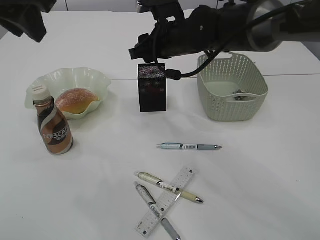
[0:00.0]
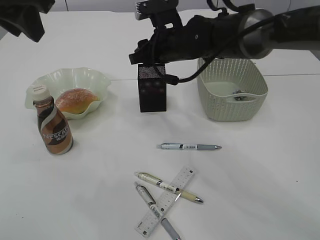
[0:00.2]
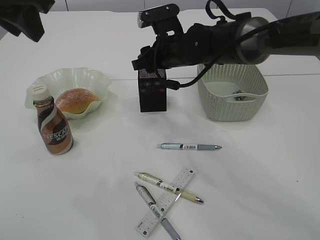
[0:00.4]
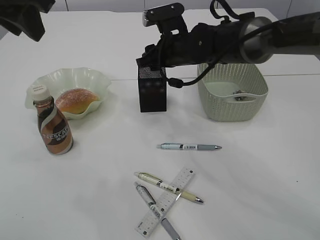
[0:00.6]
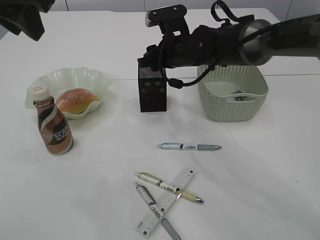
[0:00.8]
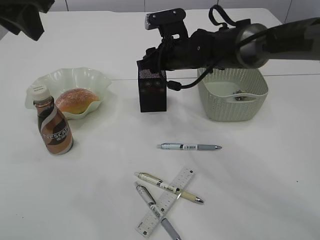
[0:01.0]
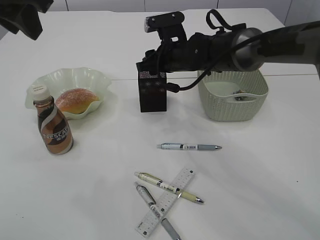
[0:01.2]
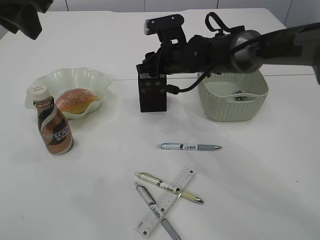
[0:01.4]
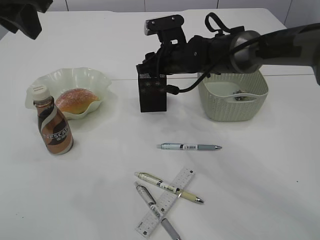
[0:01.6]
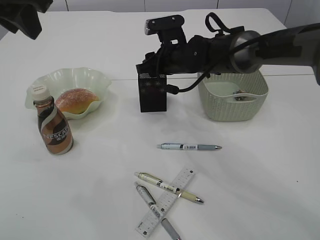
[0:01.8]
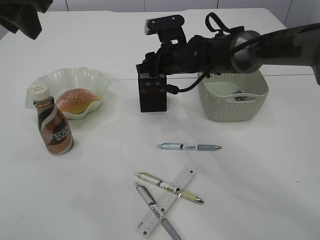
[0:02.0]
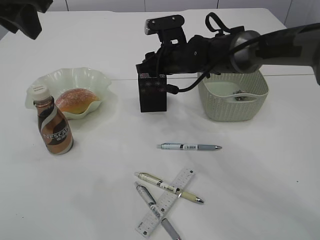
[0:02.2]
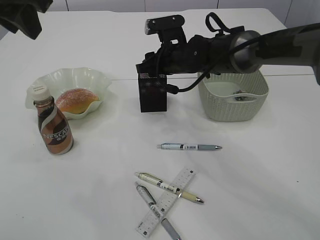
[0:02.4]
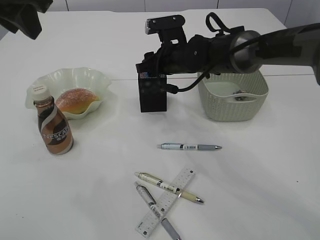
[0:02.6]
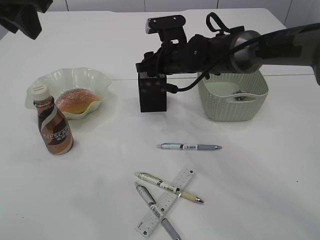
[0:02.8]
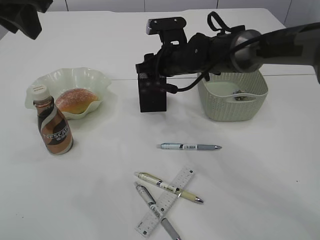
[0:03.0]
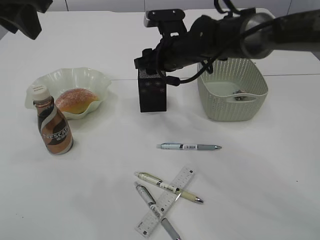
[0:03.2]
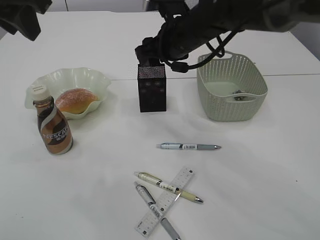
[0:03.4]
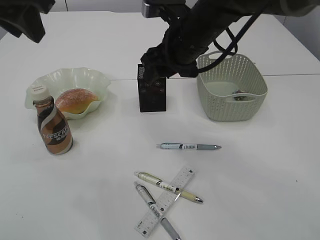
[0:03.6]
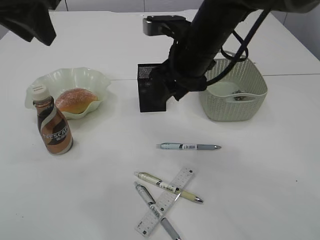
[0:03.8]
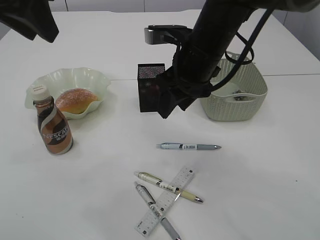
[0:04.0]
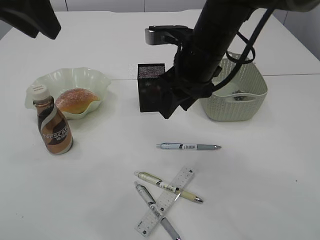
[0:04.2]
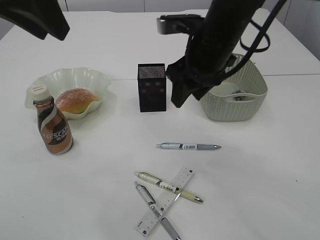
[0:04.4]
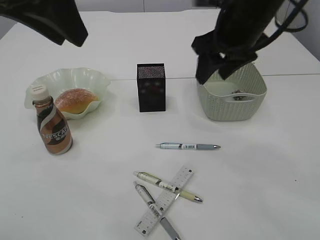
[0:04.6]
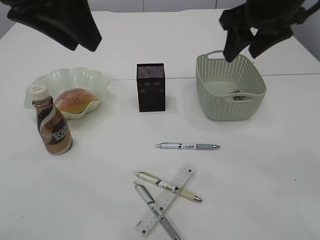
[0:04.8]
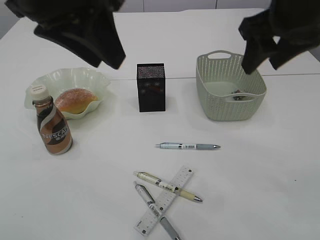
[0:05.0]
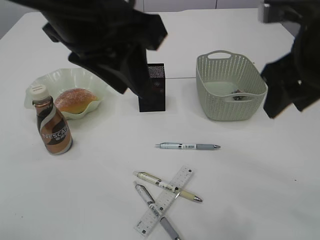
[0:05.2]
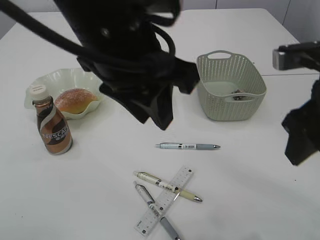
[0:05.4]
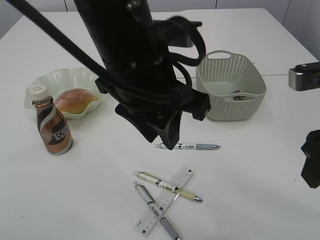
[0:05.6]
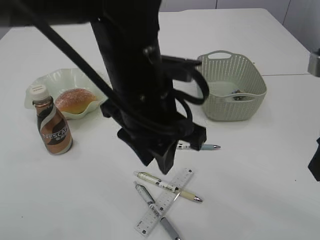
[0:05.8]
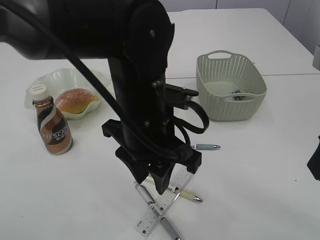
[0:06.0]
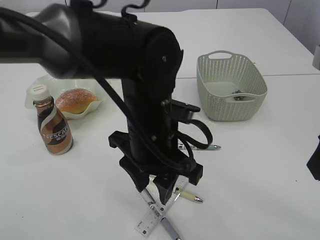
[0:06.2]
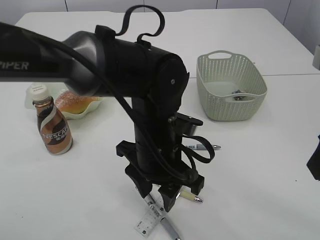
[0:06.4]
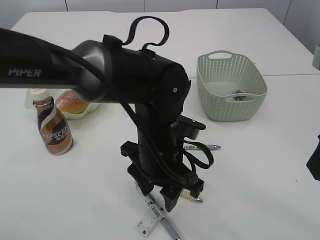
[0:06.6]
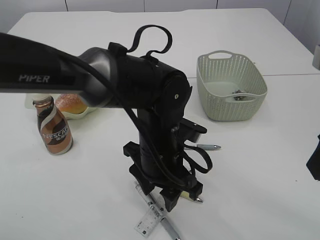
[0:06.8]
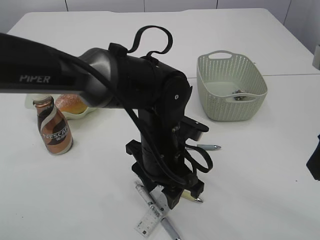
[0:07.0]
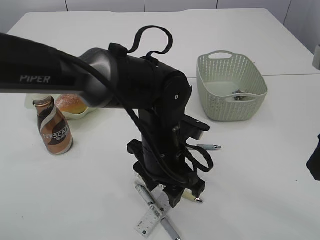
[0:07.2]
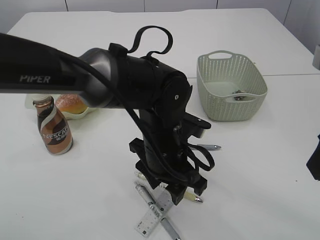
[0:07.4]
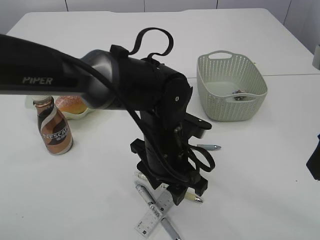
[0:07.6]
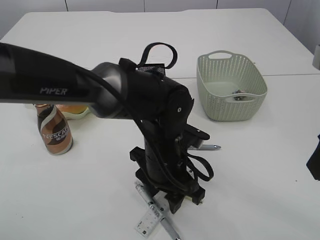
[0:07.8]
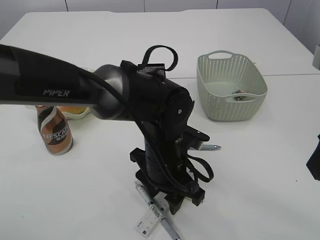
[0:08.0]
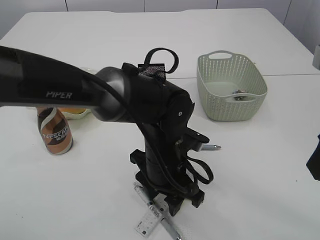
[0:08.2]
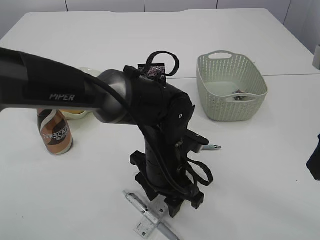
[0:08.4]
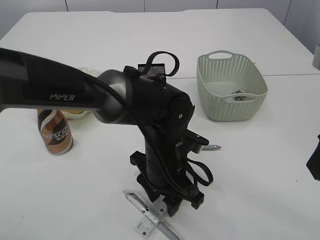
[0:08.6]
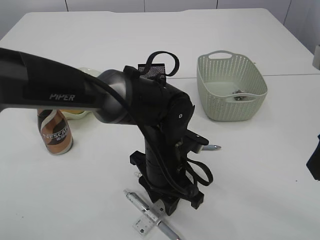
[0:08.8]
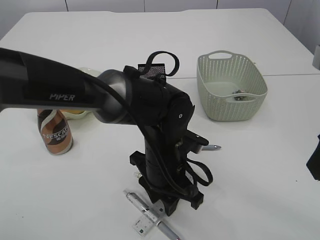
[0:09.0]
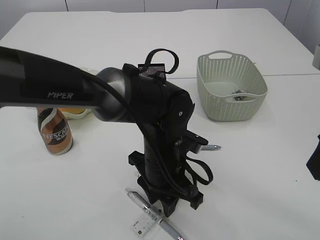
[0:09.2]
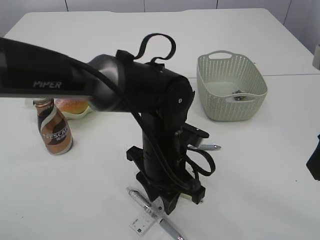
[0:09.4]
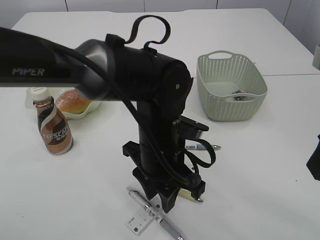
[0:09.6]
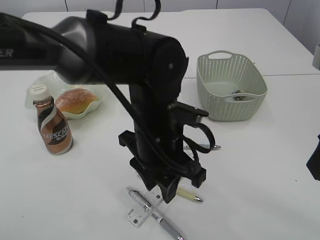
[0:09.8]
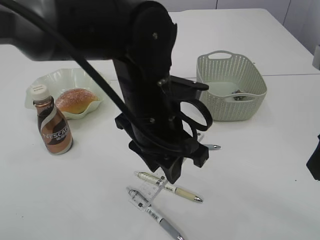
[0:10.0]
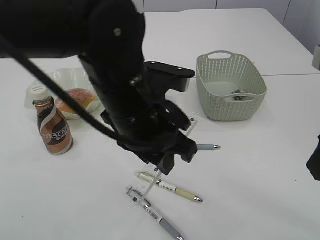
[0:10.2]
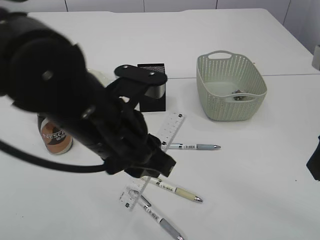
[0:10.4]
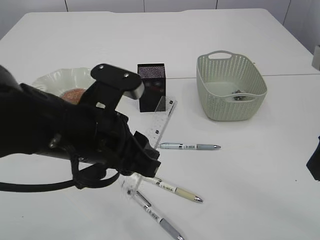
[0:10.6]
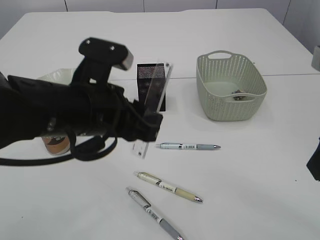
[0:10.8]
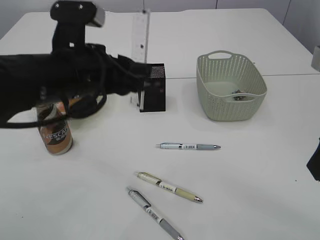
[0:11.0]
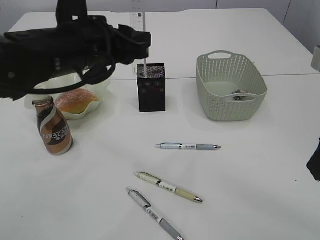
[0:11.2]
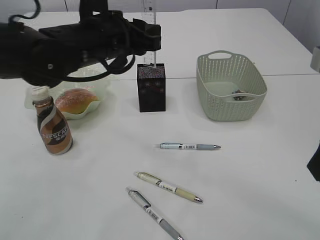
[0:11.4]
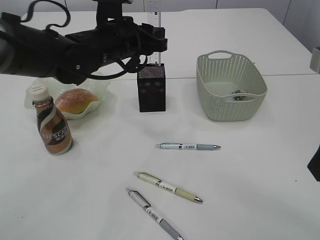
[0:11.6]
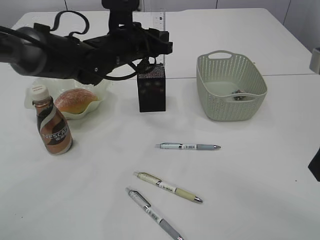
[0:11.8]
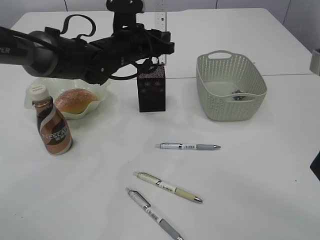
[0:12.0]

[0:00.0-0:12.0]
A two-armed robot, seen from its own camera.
Step, 0:00.0 to 0:03.4: Place the blue pencil sharpener into the pen holder.
Step, 0:03.6 to 0:10.0: pick up the ruler.
0:00.0 to 0:01.6: The right gripper is displaced downward by approximately 5 cm.
0:01.6 to 0:03.0: The grippers stay close to where they were, moving slightly.
0:03.0 to 0:04.4: The right gripper shifts some 15 cm backward and upward.
0:04.4 to 0:06.0: The left gripper travels downward and to the right by roughly 25 cm. The right gripper travels backward and to the right by roughly 25 cm.
0:06.0 to 0:07.6: The left gripper moves downward, about 10 cm.
0:07.6 to 0:09.0: The left gripper closes up.
0:09.0 to 0:10.4: The left gripper goes some 15 cm upward, to the left and backward.
0:10.4 to 0:12.0: The left gripper shifts about 25 cm forward.

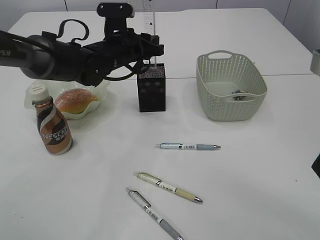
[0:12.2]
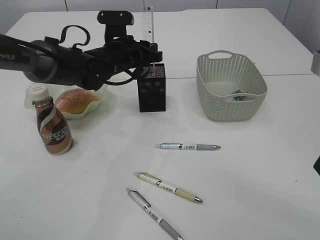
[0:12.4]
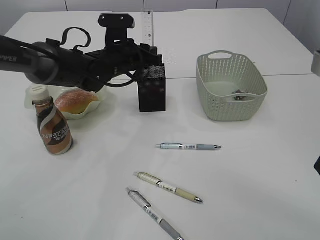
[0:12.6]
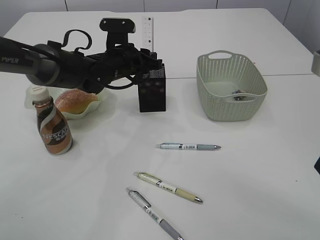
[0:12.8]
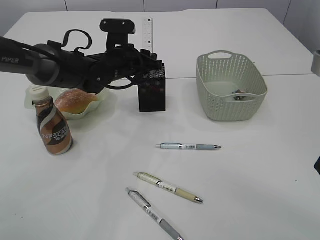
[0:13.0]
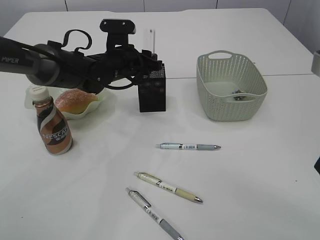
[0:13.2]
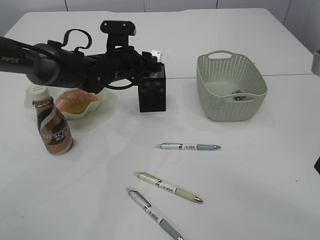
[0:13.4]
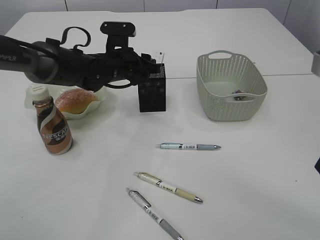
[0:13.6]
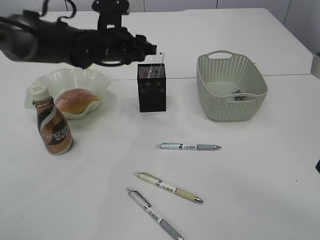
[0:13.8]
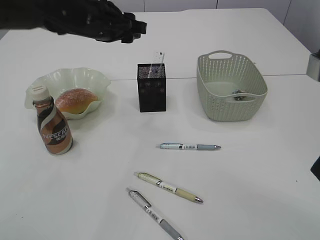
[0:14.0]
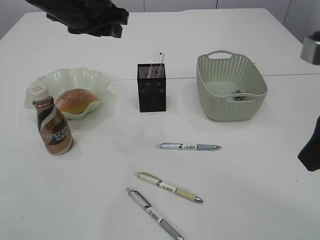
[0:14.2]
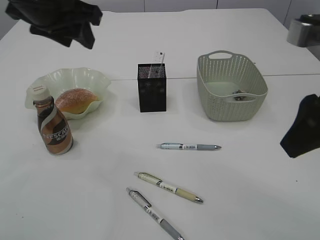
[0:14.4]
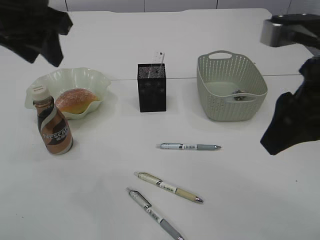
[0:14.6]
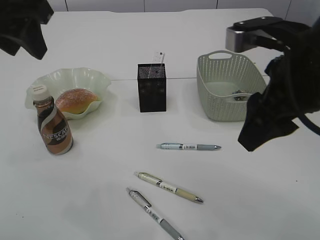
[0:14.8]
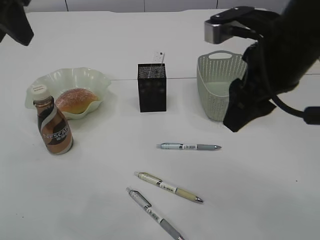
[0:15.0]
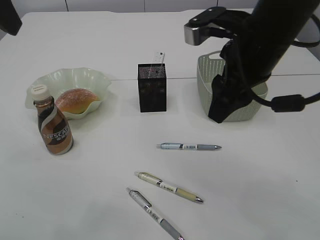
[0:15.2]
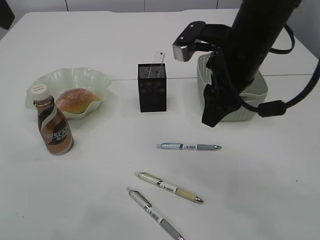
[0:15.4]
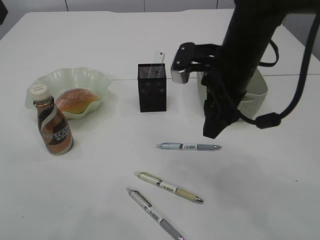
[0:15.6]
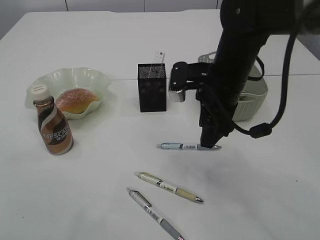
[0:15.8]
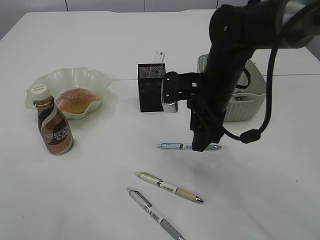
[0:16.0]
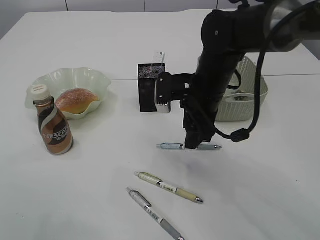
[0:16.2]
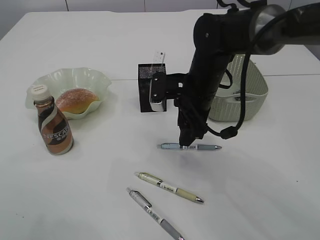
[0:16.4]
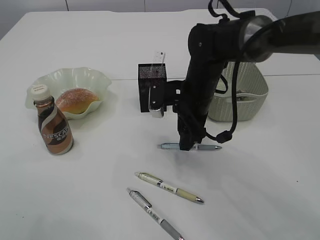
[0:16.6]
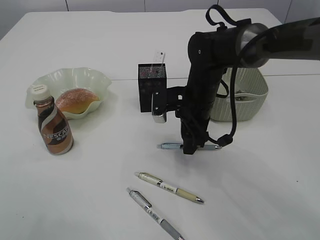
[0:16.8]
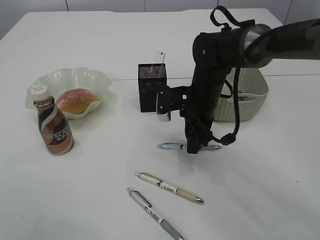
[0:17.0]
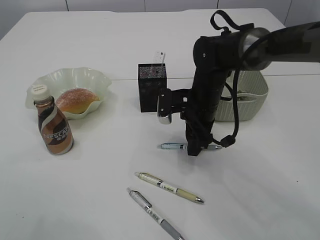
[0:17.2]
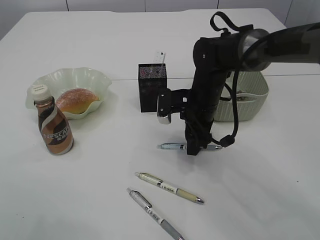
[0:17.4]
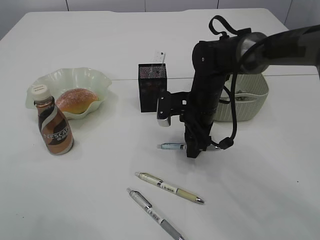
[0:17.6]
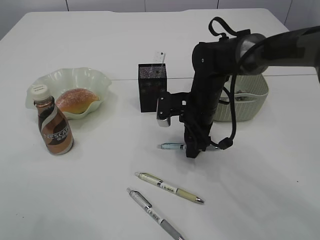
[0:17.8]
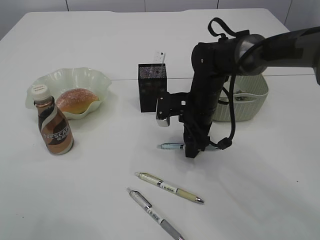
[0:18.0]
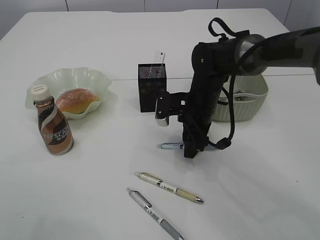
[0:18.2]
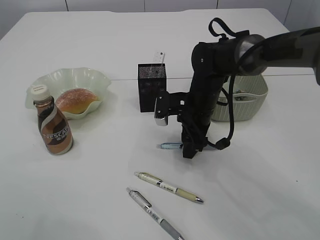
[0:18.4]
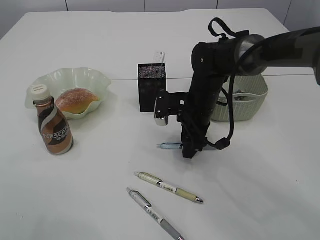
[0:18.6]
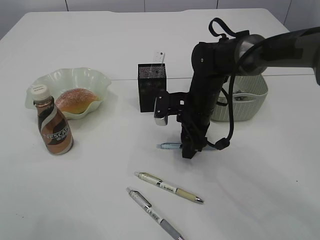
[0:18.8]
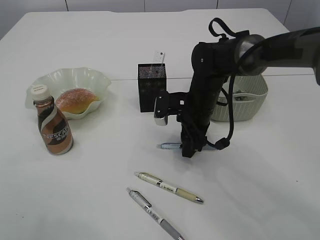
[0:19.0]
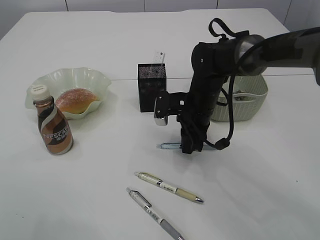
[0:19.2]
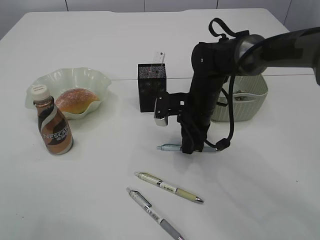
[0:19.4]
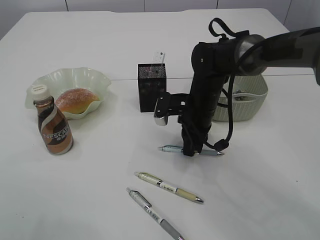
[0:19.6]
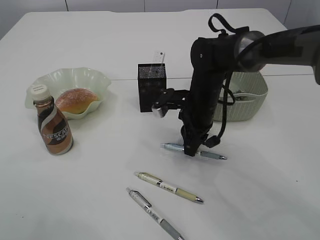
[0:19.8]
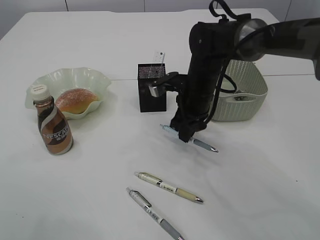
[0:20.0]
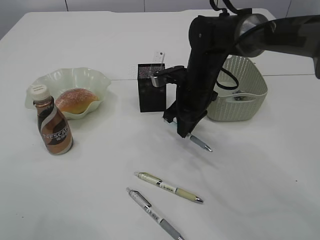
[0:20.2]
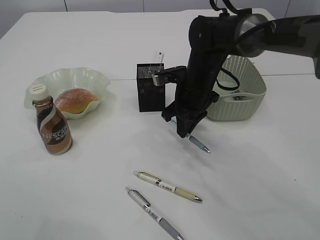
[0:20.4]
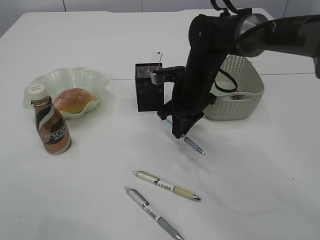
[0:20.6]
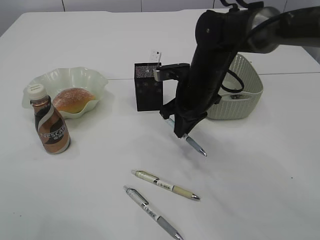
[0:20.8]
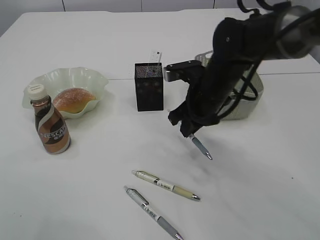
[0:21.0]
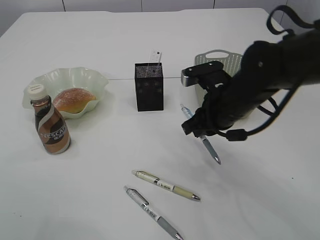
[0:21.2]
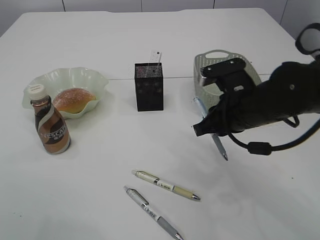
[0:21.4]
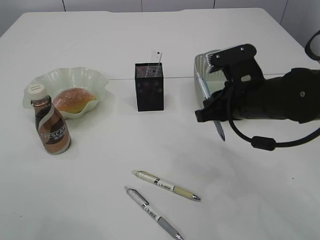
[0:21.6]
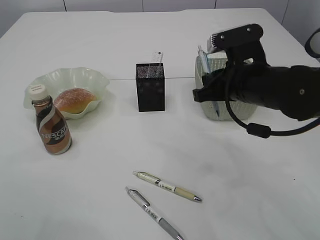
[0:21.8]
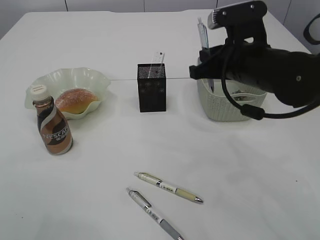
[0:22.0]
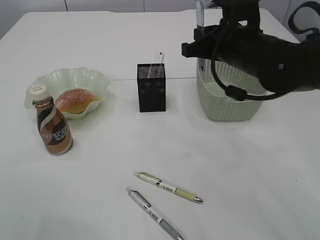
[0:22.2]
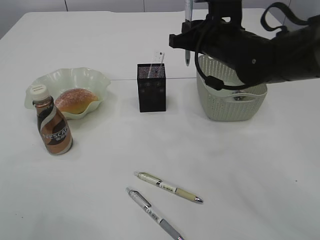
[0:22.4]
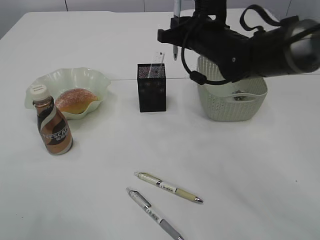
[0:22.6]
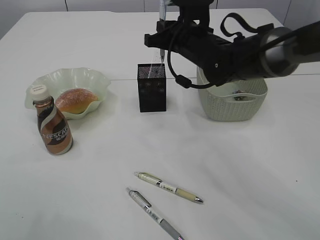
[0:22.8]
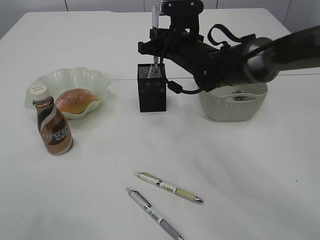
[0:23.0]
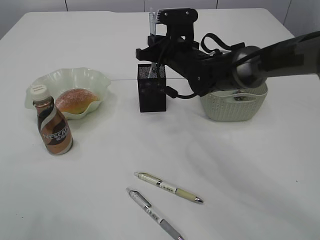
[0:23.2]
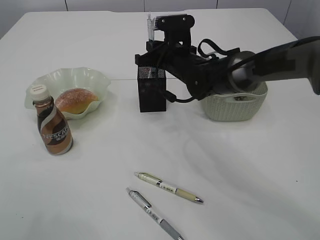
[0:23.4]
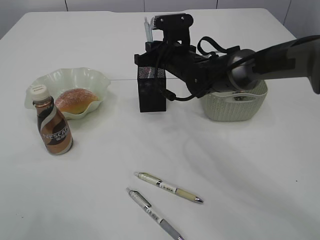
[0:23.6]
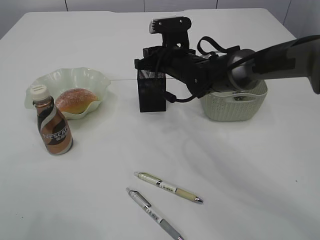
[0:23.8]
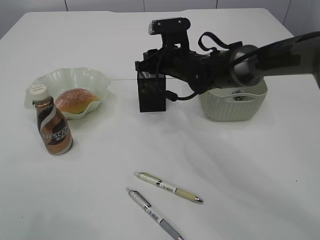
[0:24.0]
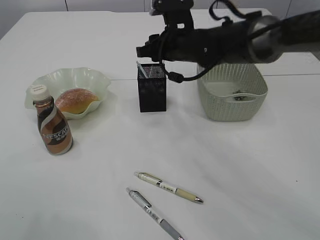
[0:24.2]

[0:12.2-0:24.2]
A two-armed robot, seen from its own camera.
Step, 0:14.2 to 0:20.6: Pick up the pen with right arm.
0:12.2 to 0:13.8: The grippers move only a little.
0:13.8 to 0:15.2: The left gripper travels upward, backward and to the left by approximately 30 cm. Meanwhile the right gripper heads forward and to the left, covering some 15 cm.
0:15.2 to 0:16.6: The right gripper goes about 15 cm downward and forward, while the left gripper travels to the left by about 5 cm.
0:16.6 to 0:18.2: The grippers stay close to where they were, moving slightly.
0:18.2 to 0:19.8: The right gripper closes up.
0:19.8 to 0:21.2: The right gripper shifts some 5 cm backward.
0:21.2 to 0:22.6: The right gripper shifts some 10 cm forward and upward.
0:22.6 to 0:24.2: The right gripper opens.
